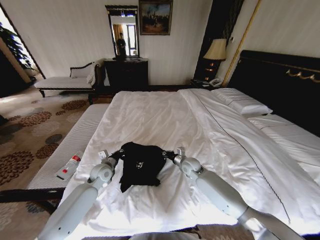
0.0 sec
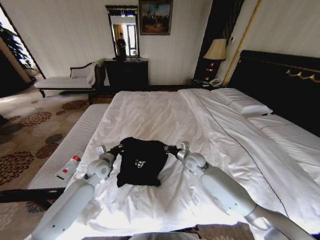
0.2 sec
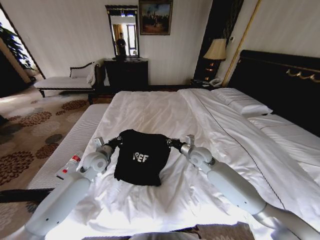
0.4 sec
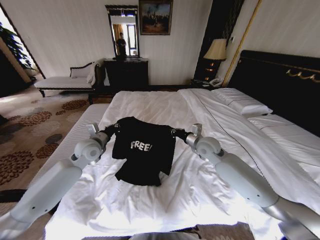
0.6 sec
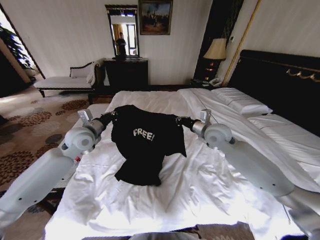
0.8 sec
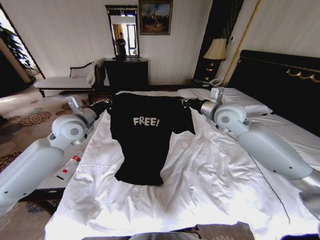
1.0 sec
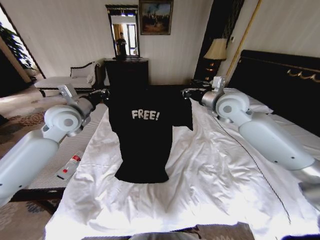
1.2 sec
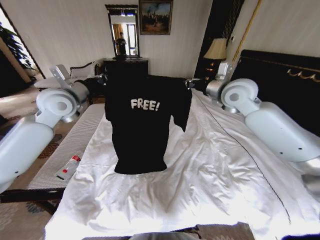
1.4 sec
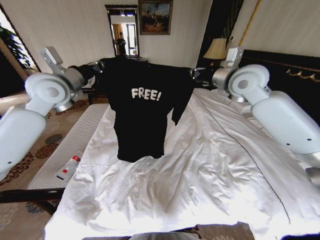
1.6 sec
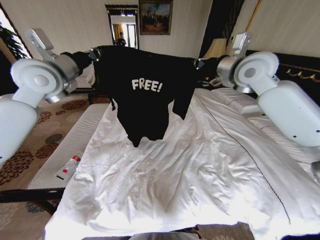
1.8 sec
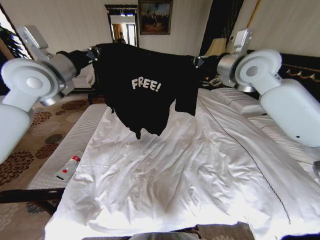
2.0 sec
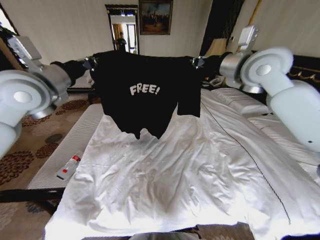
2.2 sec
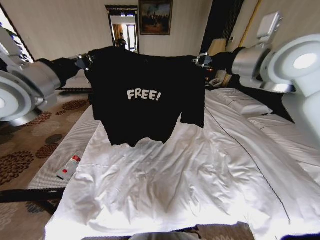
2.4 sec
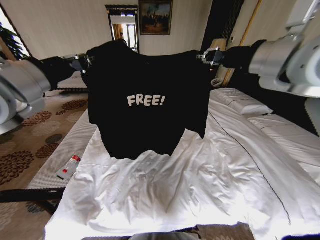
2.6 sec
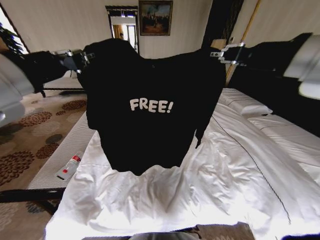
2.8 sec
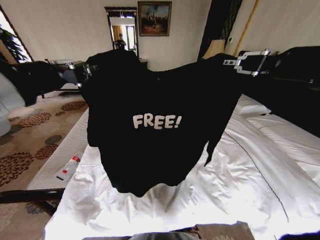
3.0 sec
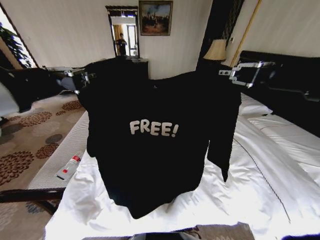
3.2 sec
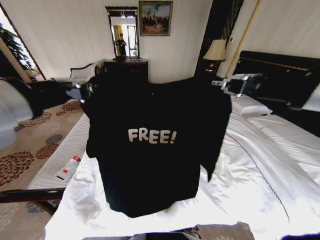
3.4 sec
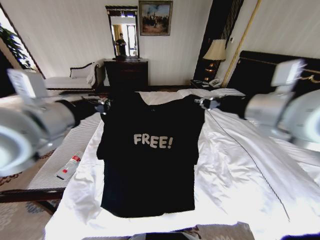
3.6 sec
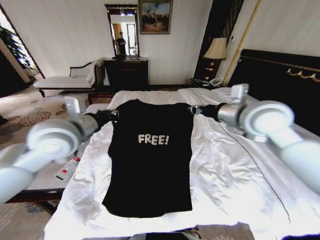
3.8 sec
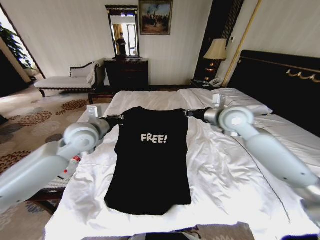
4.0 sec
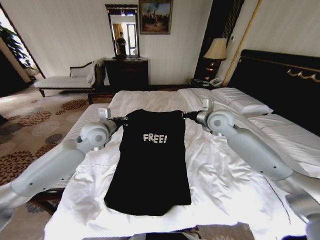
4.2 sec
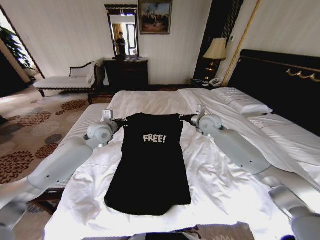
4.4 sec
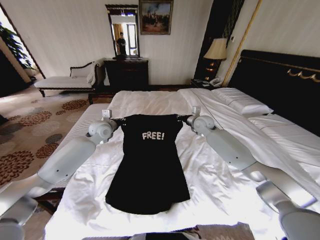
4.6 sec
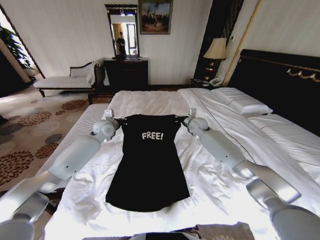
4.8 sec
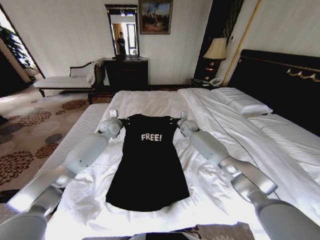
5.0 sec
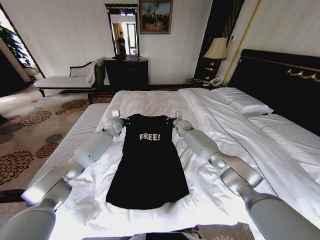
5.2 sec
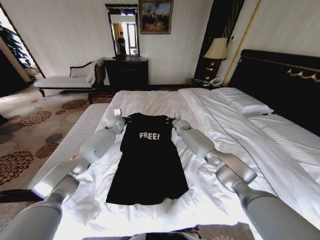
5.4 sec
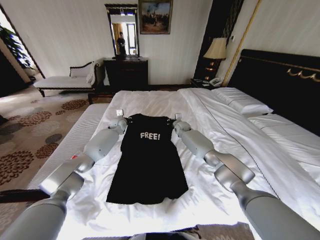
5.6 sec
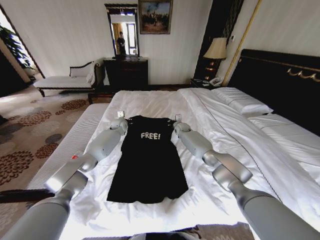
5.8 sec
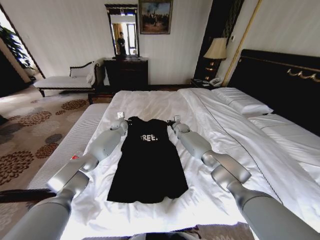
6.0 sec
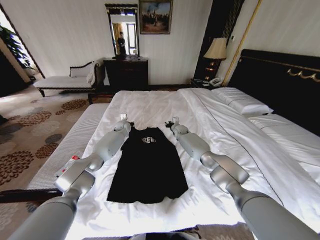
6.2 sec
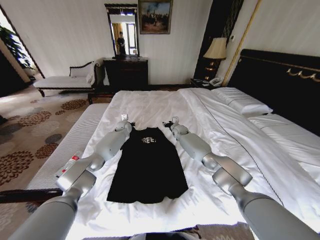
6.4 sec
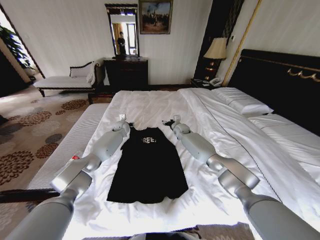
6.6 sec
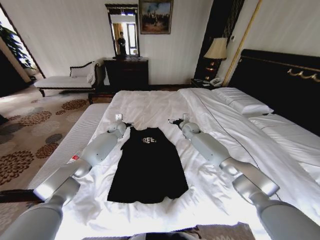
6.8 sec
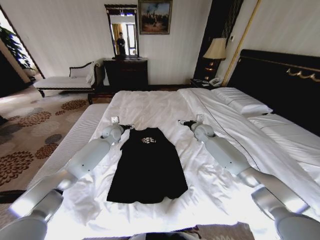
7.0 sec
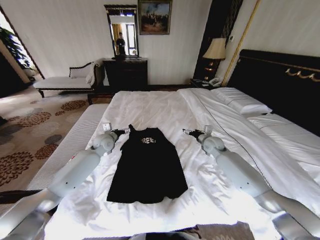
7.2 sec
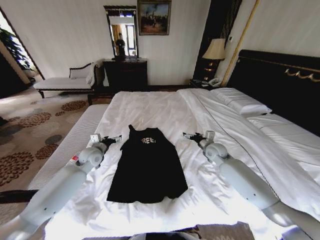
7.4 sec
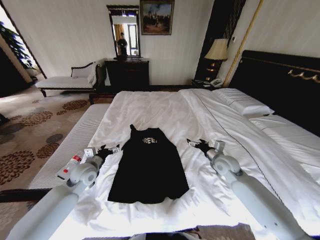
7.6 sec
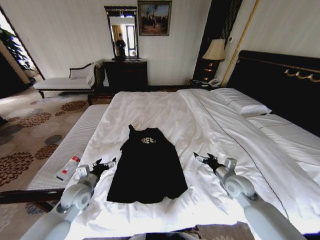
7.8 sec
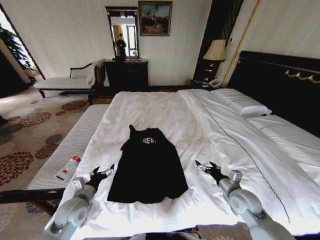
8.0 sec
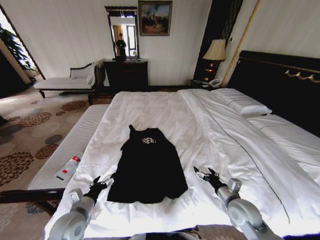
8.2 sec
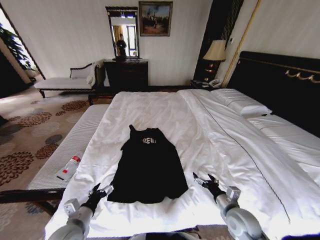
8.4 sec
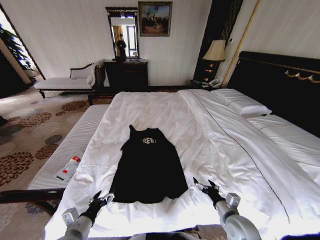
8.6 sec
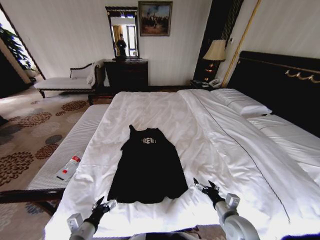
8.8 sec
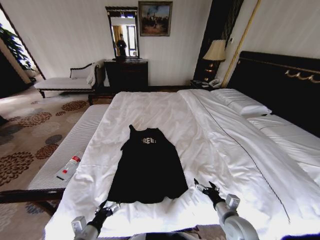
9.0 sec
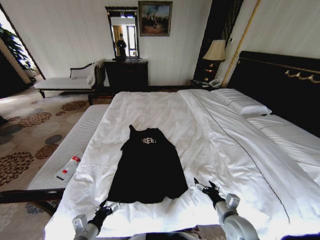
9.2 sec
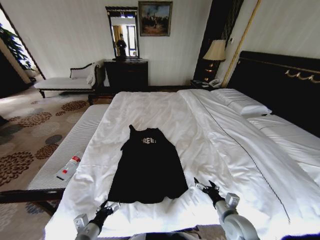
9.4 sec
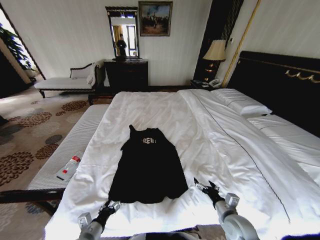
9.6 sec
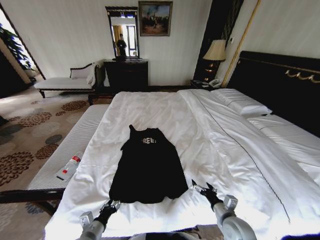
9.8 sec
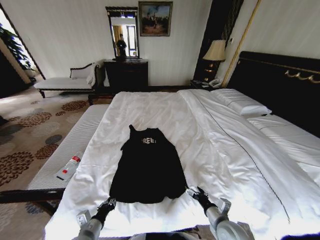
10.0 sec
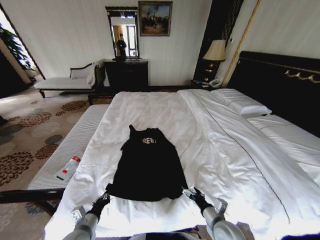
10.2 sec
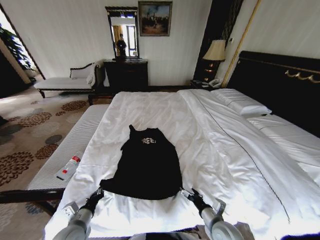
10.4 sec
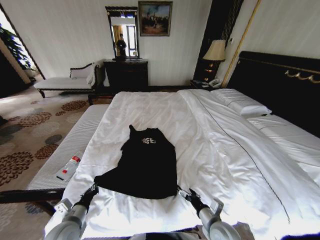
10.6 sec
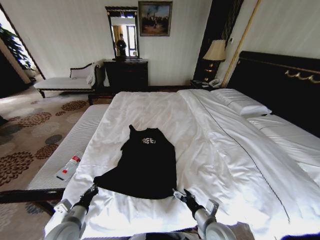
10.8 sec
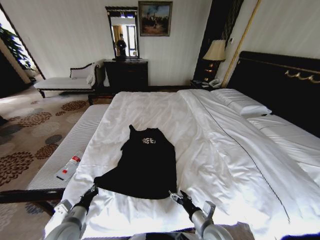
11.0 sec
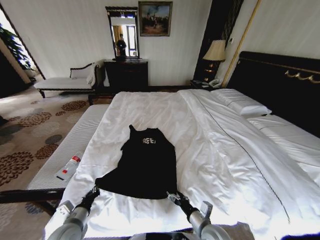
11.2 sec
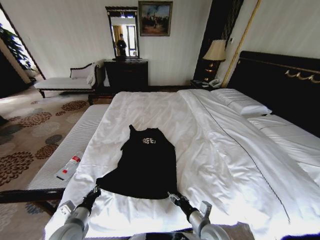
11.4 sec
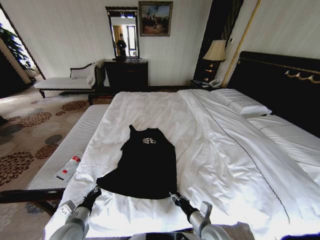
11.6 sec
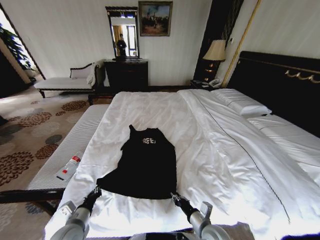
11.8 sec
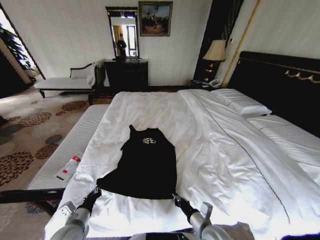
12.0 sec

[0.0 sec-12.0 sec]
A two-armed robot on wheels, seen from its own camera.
Task of the whole recording: Fold the clothes on the bed.
0.0 sec to 1.6 sec: The two grippers go about 40 cm upward.
1.6 sec to 3.0 sec: The two grippers go roughly 25 cm backward.
3.0 sec to 4.4 sec: Both grippers move forward and downward, about 40 cm.
4.4 sec to 6.0 sec: The left gripper heads forward and downward, covering about 20 cm; the right gripper travels downward, forward and to the left by roughly 20 cm.
6.0 sec to 7.6 sec: The right gripper moves backward and to the right, some 30 cm, and opens; the left gripper travels backward by some 30 cm, and opens.
7.6 sec to 9.0 sec: Both grippers travel together backward and downward, approximately 25 cm.
9.0 sec to 10.4 sec: The right gripper shifts approximately 5 cm to the left; the left gripper changes place by roughly 5 cm, and closes up.
10.4 sec to 12.0 sec: The right gripper closes its fingers.

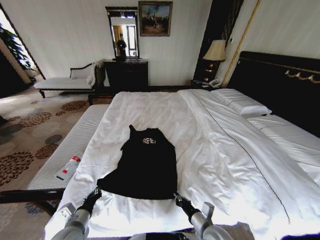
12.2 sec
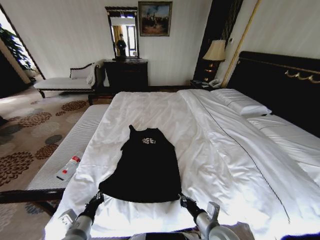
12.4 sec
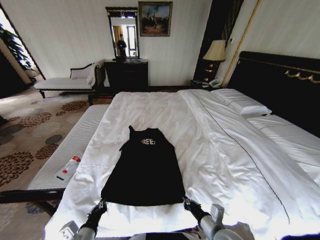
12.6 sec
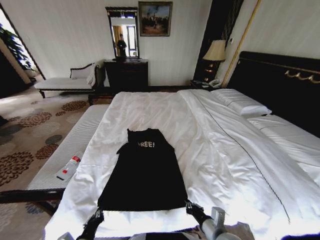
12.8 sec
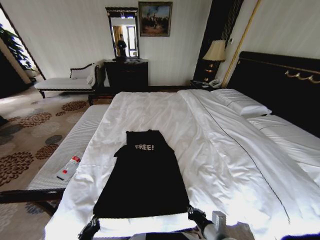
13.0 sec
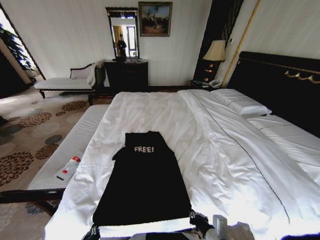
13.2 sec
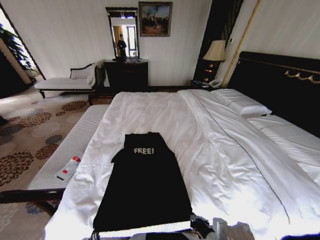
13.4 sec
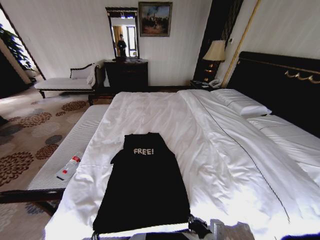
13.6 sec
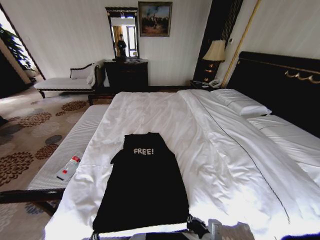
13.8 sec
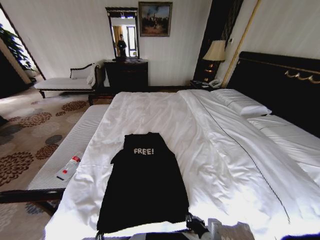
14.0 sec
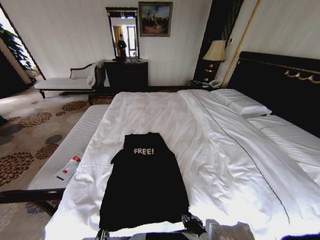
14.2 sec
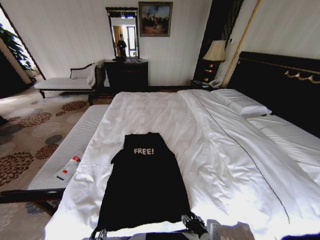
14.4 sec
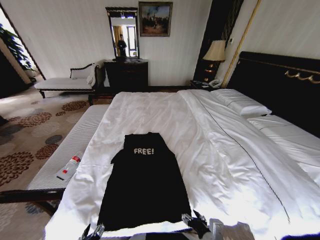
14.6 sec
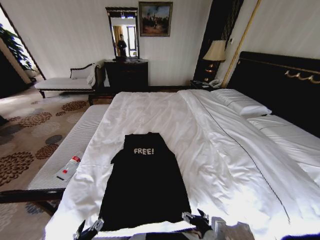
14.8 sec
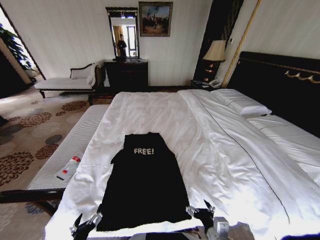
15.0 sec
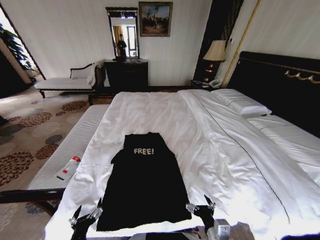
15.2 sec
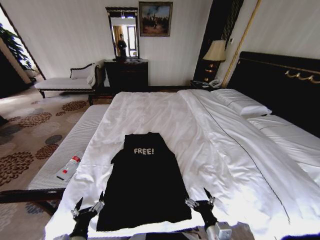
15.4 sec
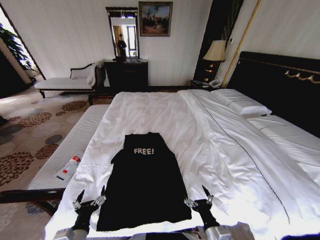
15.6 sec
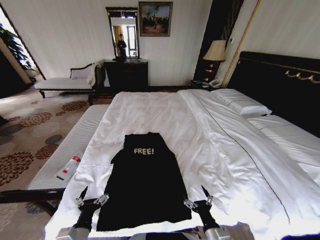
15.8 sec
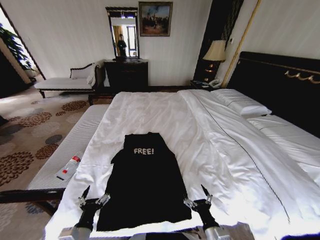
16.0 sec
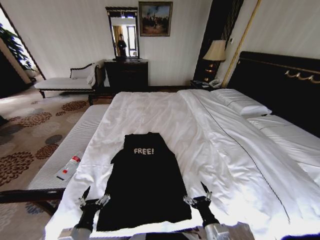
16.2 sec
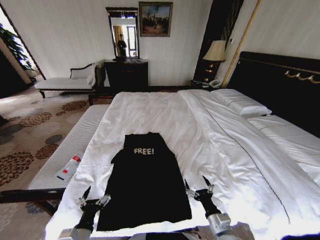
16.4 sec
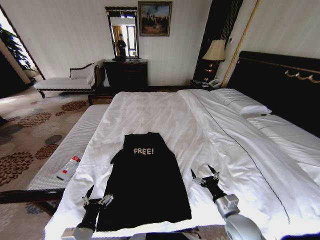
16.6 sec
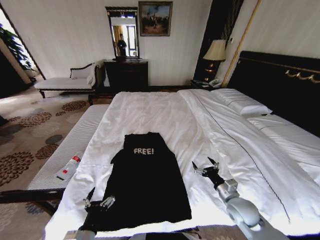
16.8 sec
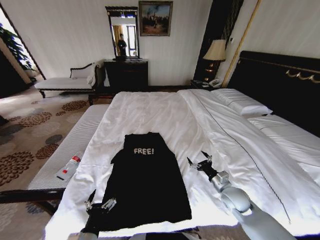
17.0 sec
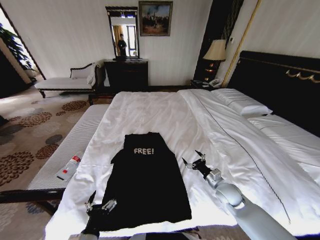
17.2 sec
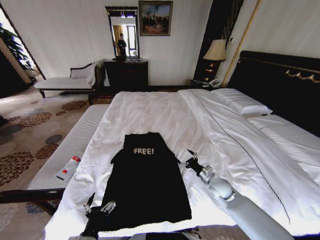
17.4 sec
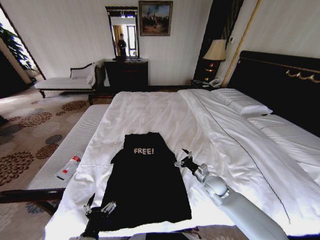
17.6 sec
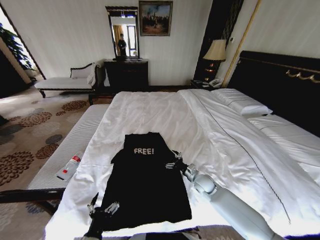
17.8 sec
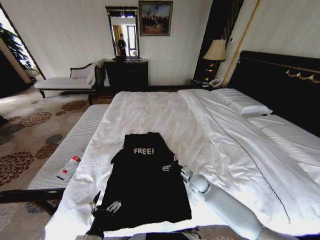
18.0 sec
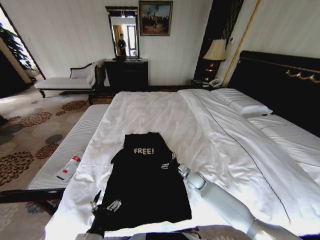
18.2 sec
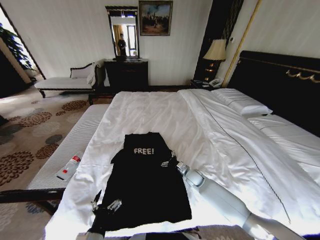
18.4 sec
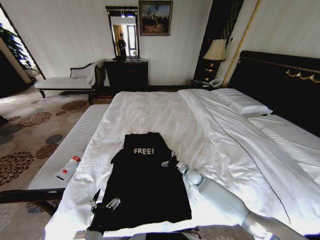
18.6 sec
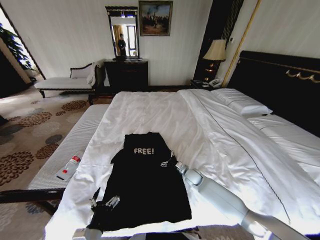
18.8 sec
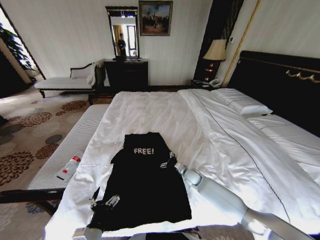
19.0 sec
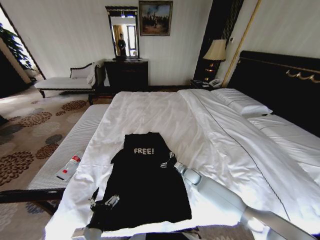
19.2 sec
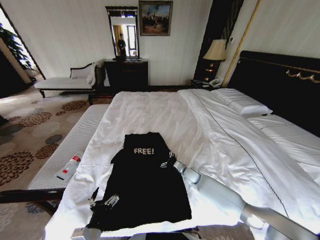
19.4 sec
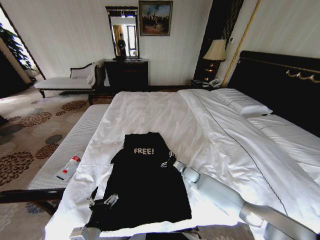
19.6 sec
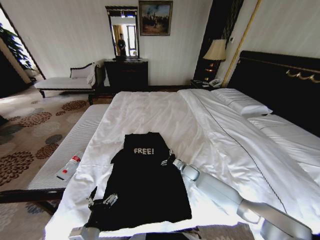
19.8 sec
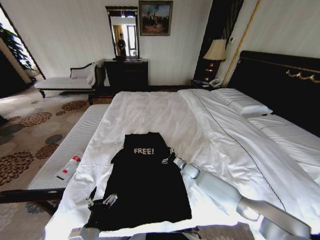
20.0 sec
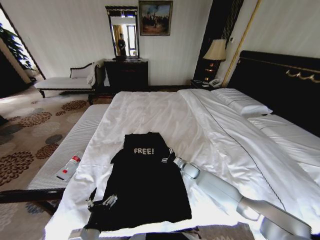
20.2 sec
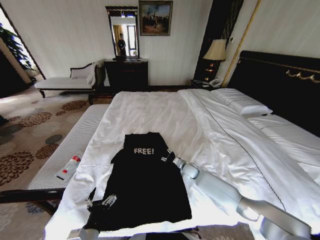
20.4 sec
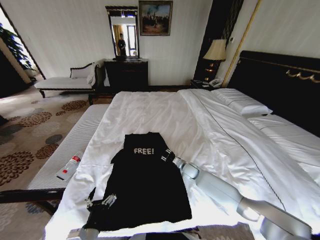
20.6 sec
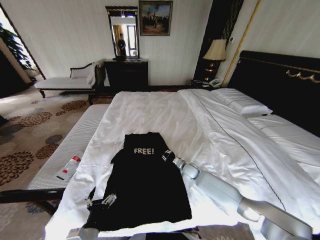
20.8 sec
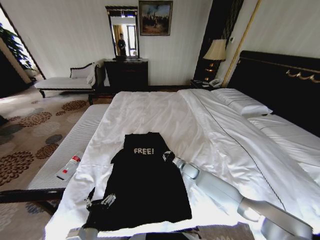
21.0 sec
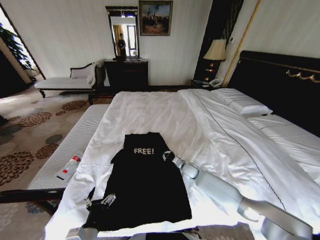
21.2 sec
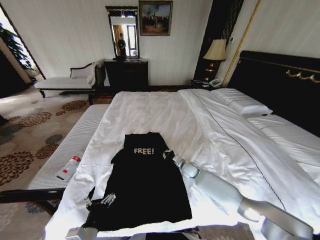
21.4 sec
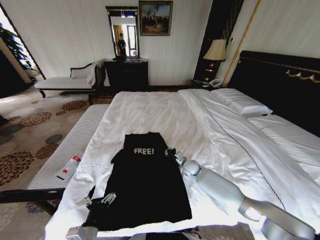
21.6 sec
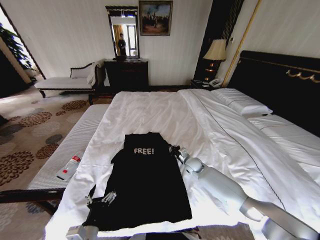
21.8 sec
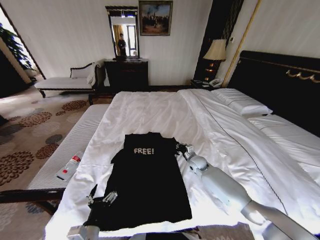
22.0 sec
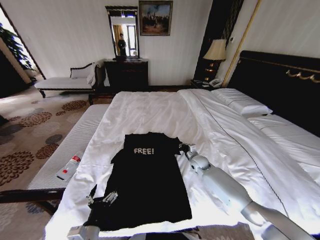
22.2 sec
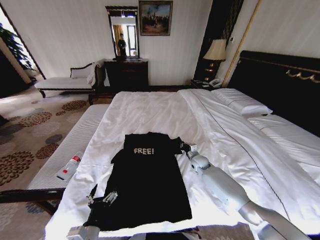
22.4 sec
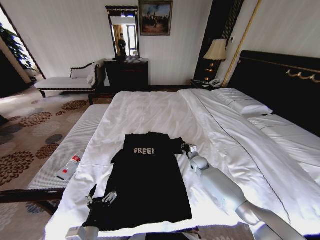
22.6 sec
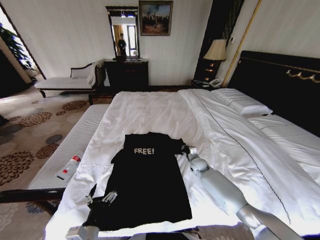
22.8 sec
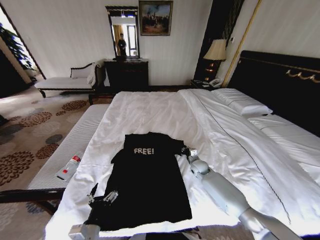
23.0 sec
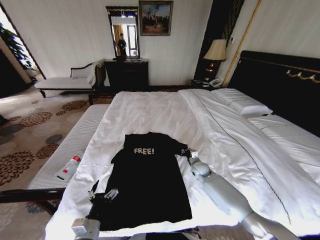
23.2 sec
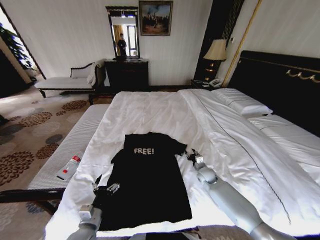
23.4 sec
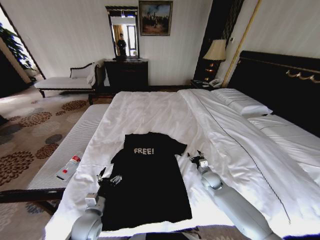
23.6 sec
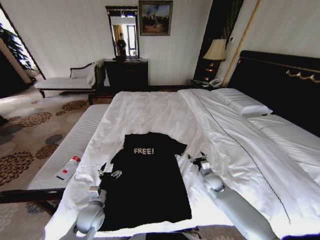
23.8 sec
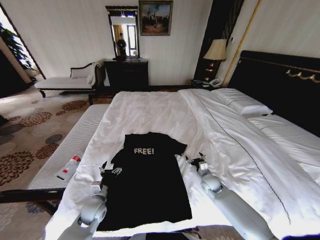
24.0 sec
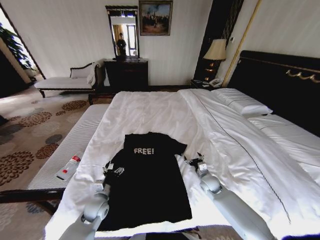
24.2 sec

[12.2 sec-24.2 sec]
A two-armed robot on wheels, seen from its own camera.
Task of the whole recording: Fold the clothes on the bed.
12.2 sec to 13.8 sec: The left gripper goes roughly 15 cm backward and to the right. The right gripper is displaced backward by roughly 5 cm.
13.8 sec to 15.2 sec: The right gripper opens its fingers; the left gripper changes place by some 5 cm, and opens up.
15.2 sec to 16.6 sec: The right gripper shifts some 10 cm forward and to the right.
16.6 sec to 18.2 sec: The right gripper moves forward, roughly 20 cm.
18.2 sec to 19.8 sec: The right gripper travels forward by roughly 5 cm.
19.8 sec to 21.2 sec: The right gripper closes up.
21.2 sec to 22.6 sec: The right gripper goes roughly 5 cm to the right.
22.6 sec to 24.2 sec: The right gripper shifts about 10 cm backward, and opens. The left gripper goes approximately 20 cm forward and downward.
